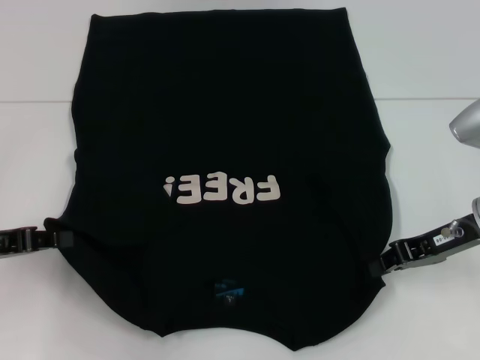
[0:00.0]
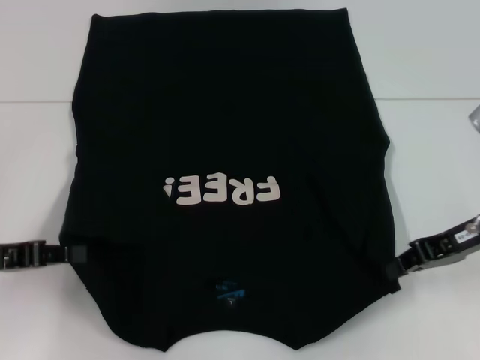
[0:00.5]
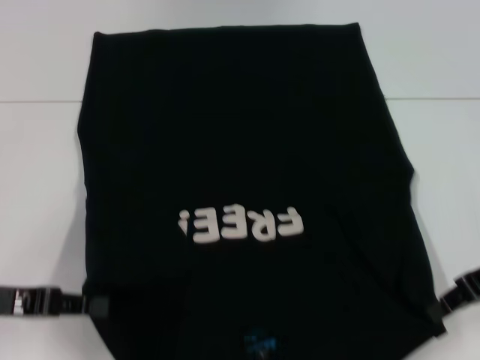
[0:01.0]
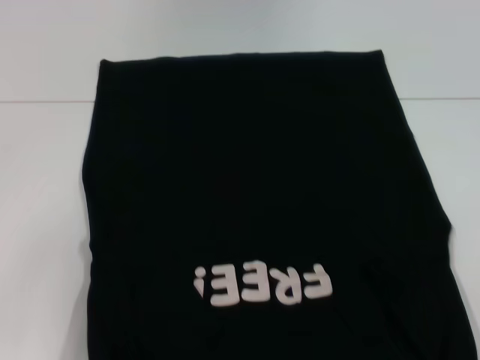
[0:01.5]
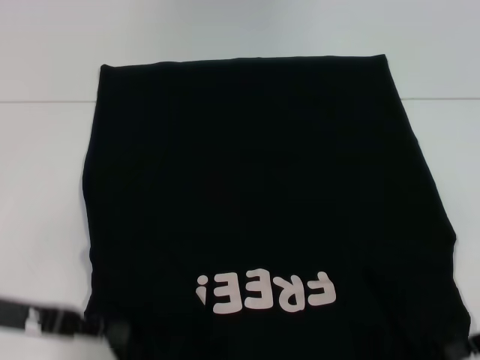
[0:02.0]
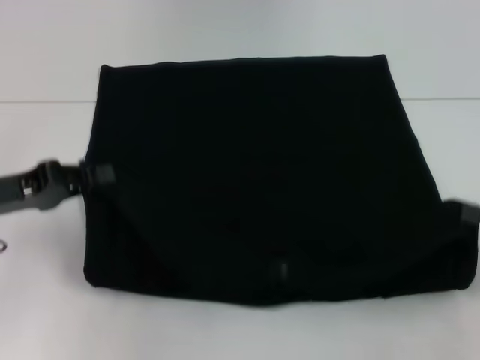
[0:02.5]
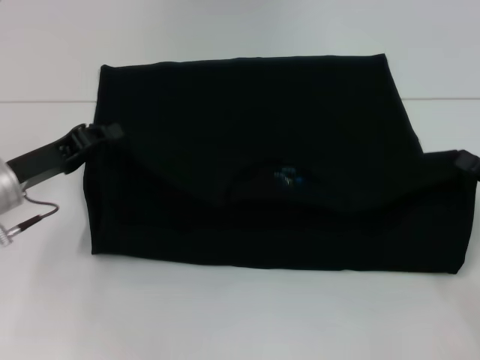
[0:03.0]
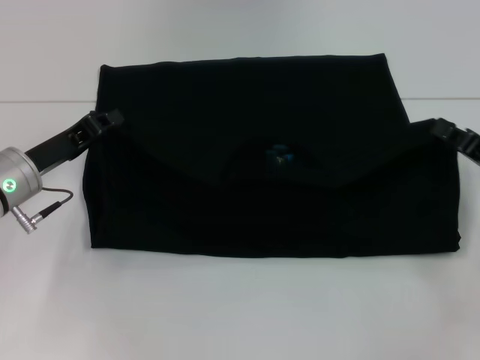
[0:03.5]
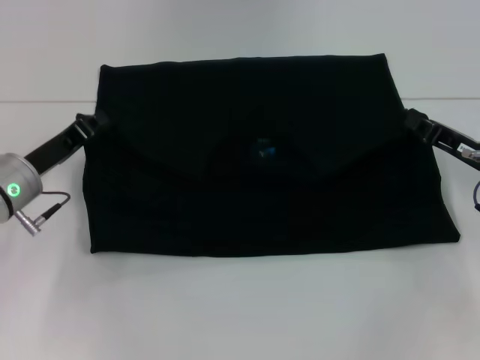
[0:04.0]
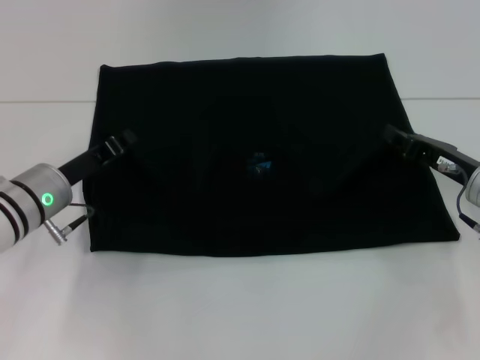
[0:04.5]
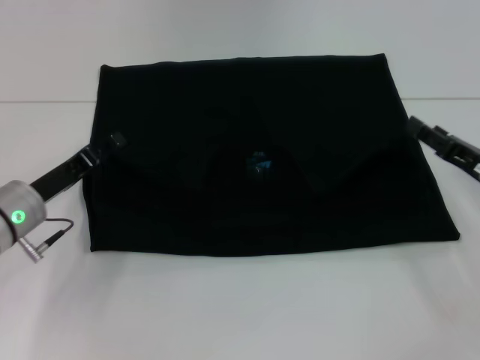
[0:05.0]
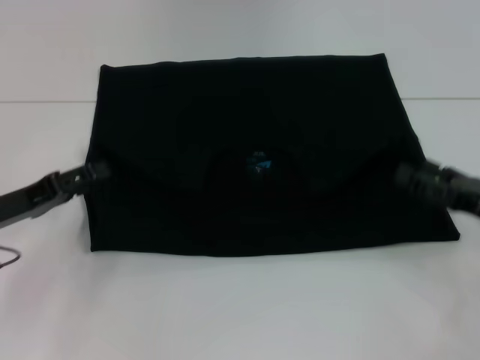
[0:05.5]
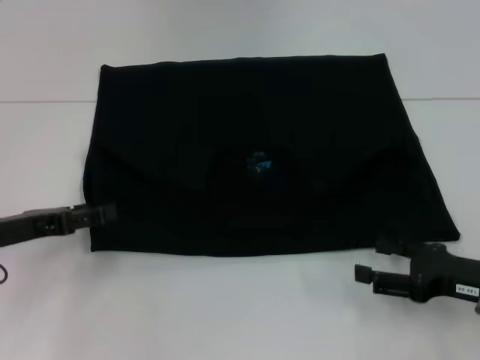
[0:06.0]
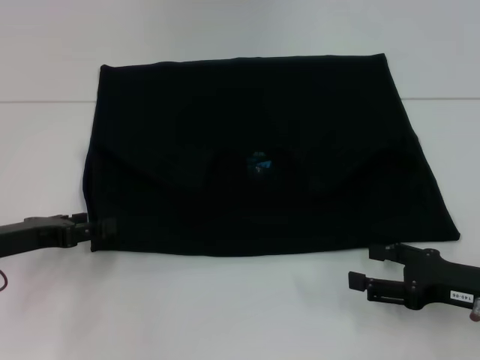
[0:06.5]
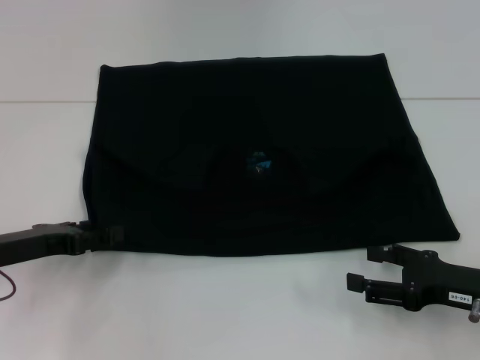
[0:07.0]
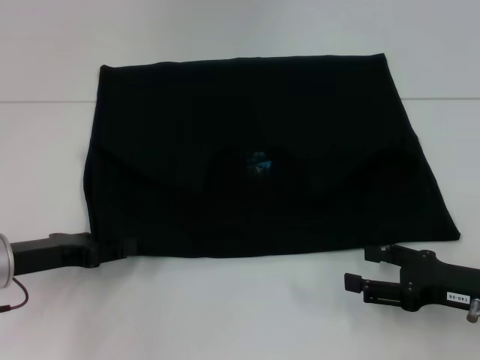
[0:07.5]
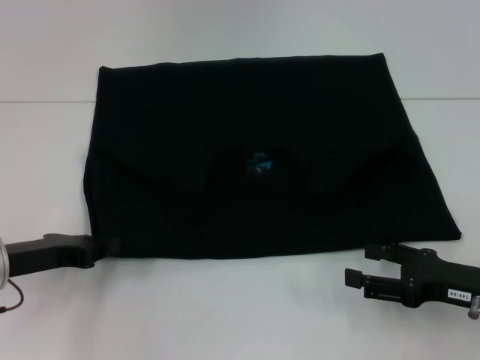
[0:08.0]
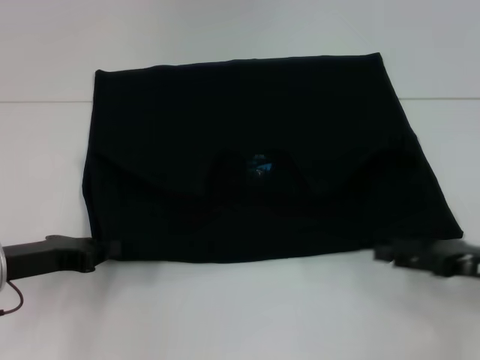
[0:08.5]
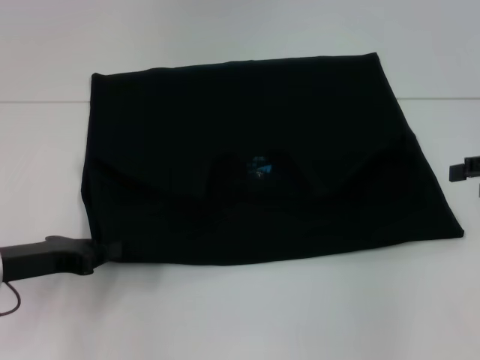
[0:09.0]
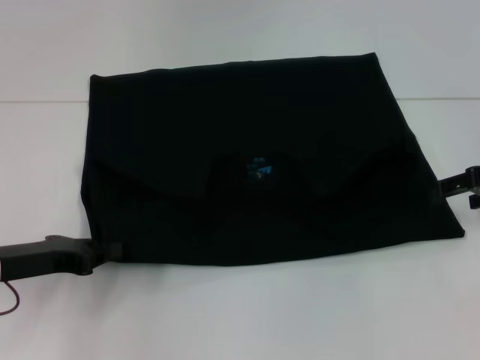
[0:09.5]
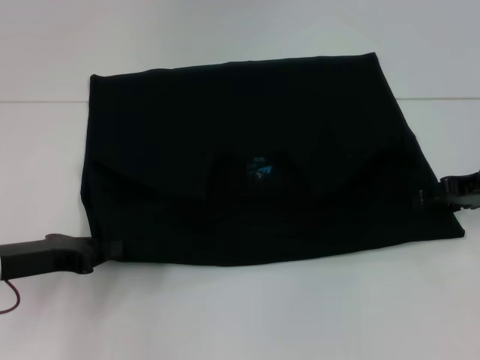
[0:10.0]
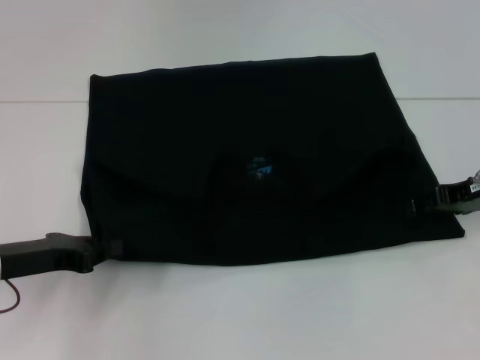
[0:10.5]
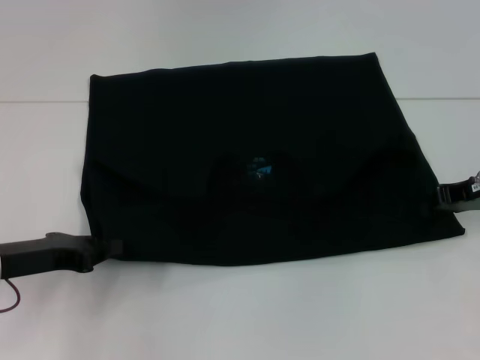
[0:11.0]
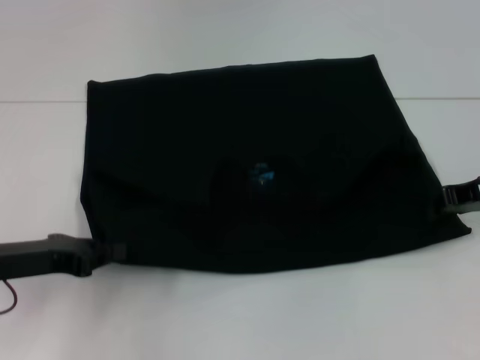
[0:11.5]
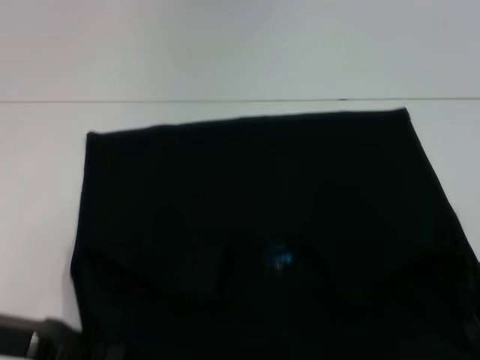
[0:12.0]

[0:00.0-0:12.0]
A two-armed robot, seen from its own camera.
Step, 0:00.0 to 0:04.5: Fold the clothes with your left hand.
Step, 0:00.0 to 0:04.5: Fold the clothes with your right hand.
0:00.0 to 0:02.0: The right gripper heads backward and to the right, covering approximately 10 cm. The left gripper moves about 5 cm.
0:02.0 to 0:04.0: Both grippers move forward, some 10 cm.
0:04.0 to 0:06.0: The left gripper goes approximately 5 cm backward, and opens its fingers. Meanwhile the right gripper goes some 10 cm backward, and opens its fingers.
0:06.0 to 0:08.0: The left gripper closes.
0:08.0 to 0:10.0: The right gripper moves forward and upward, some 15 cm.
0:10.0 to 0:12.0: The left gripper shifts by roughly 5 cm, while the right gripper heads backward, covering approximately 10 cm, and closes up.

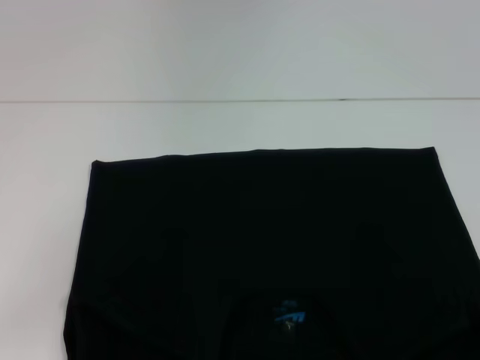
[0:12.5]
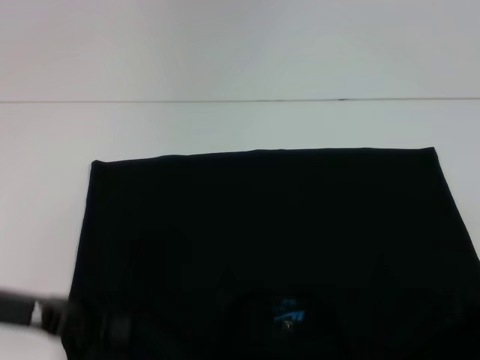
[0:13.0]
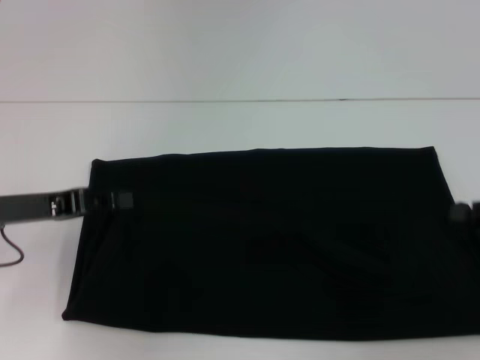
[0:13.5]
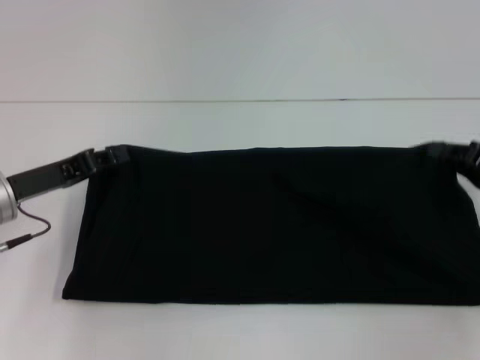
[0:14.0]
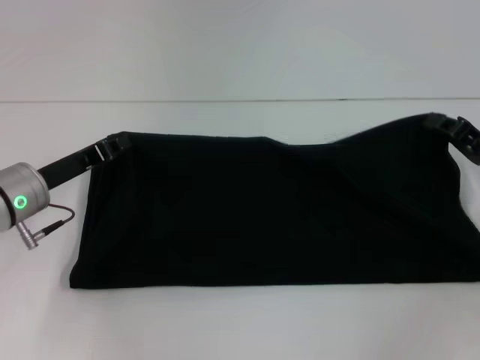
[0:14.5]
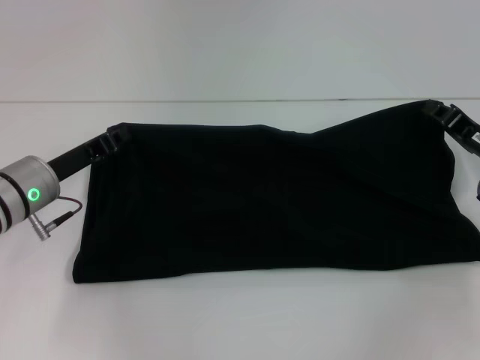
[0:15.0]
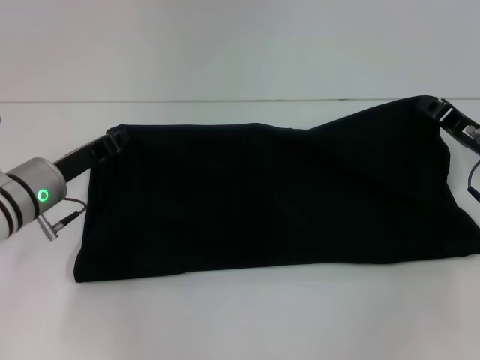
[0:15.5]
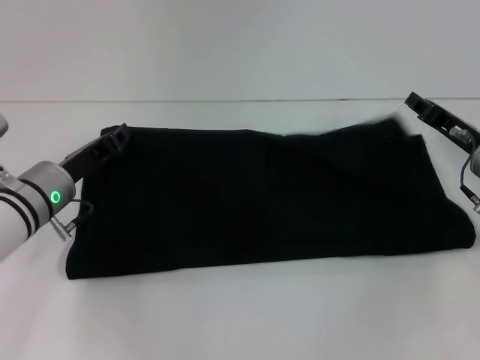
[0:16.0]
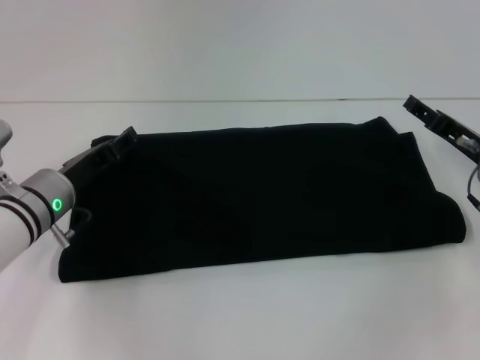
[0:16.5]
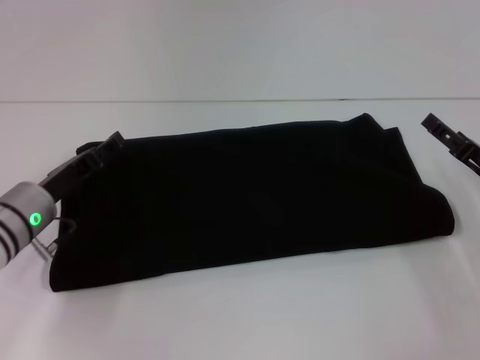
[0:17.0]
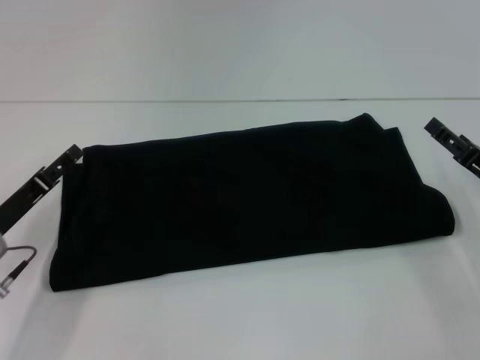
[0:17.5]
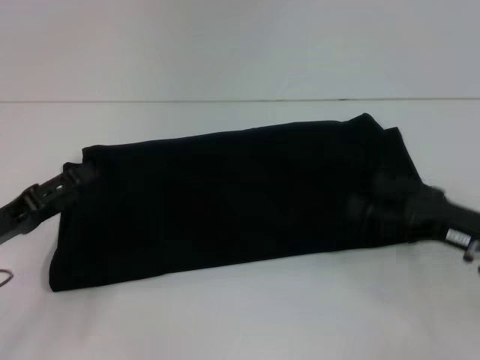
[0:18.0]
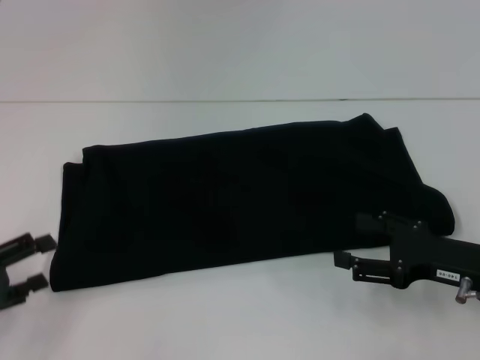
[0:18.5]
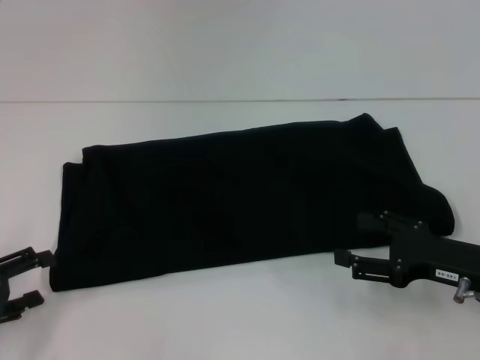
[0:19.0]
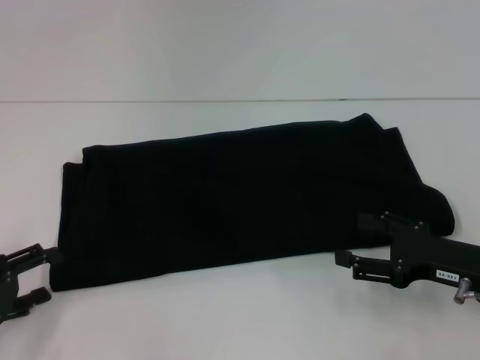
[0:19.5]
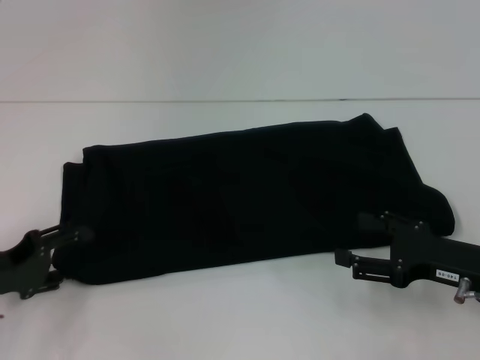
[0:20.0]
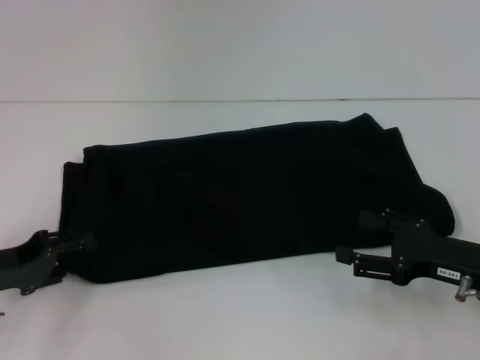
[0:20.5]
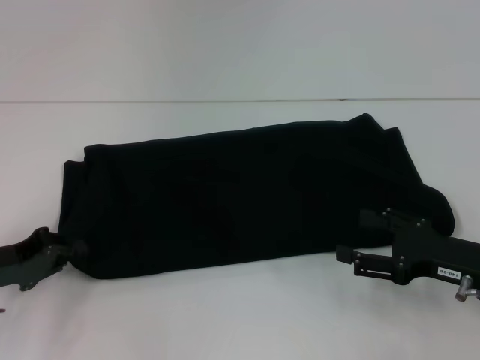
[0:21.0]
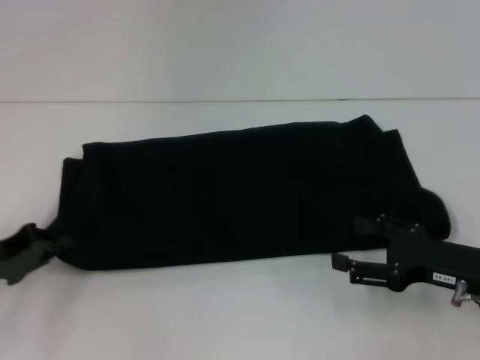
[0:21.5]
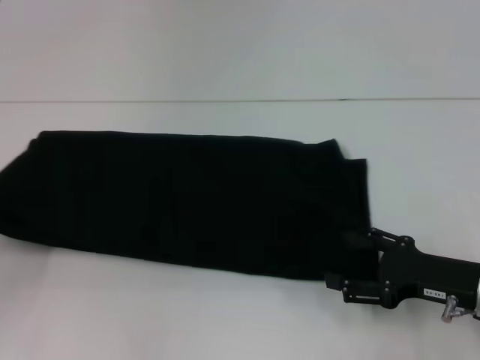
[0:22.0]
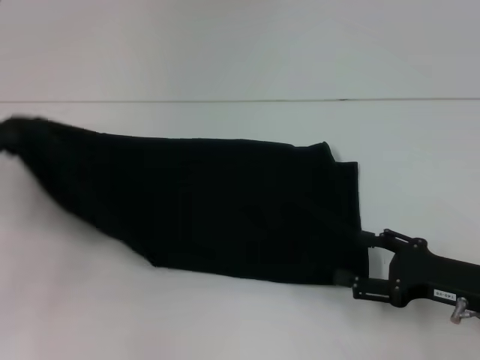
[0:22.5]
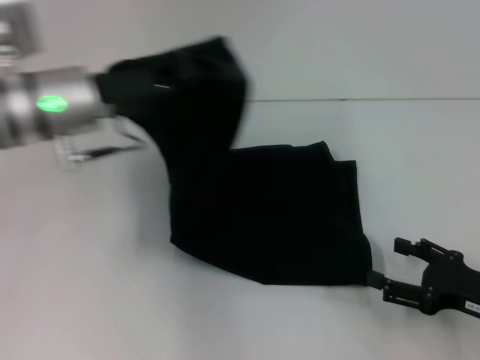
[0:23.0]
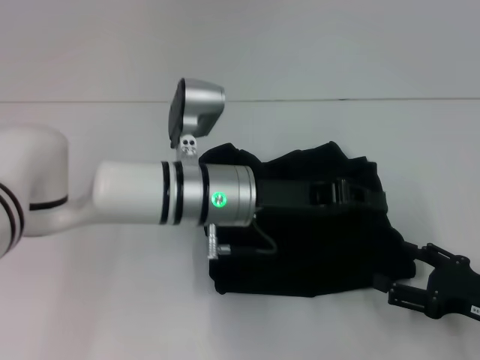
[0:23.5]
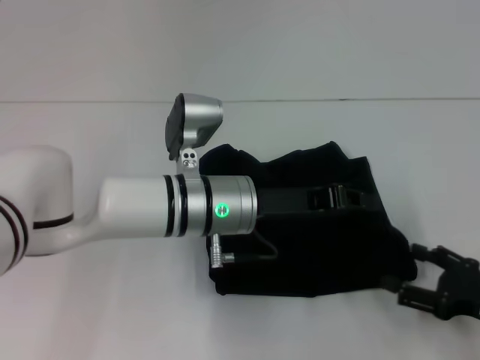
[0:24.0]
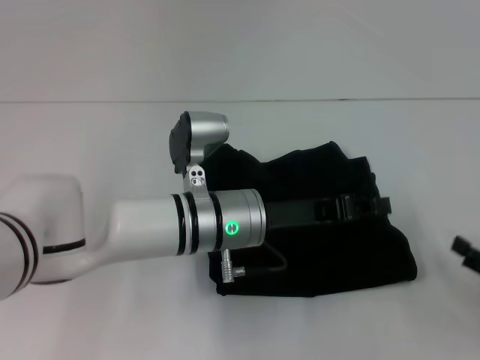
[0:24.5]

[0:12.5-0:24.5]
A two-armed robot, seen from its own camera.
Step, 0:13.0 to 0:17.0: Fold the clothes with your right hand.
0:12.5 to 0:14.5: The two grippers go roughly 10 cm forward.
0:14.5 to 0:16.5: The right gripper opens up, while the left gripper opens its fingers.
0:16.5 to 0:18.5: The left gripper moves backward and to the left, approximately 20 cm. The right gripper moves backward, about 10 cm, and opens its fingers.
0:18.5 to 0:20.5: The left gripper shifts about 5 cm forward.
0:20.5 to 0:22.5: The left gripper goes some 10 cm upward, and closes up.
0:22.5 to 0:24.5: The right gripper is displaced to the right by approximately 10 cm. The left gripper heads to the right, covering roughly 30 cm.

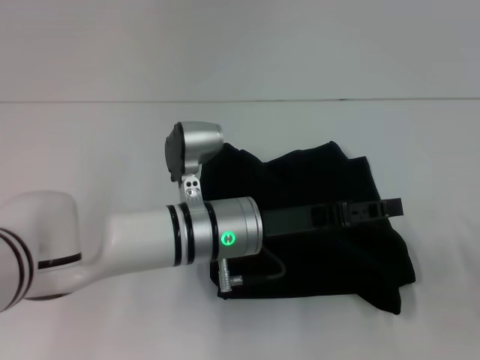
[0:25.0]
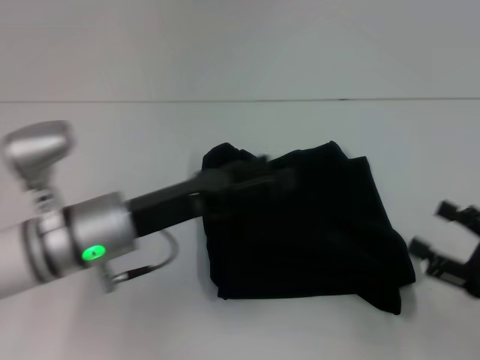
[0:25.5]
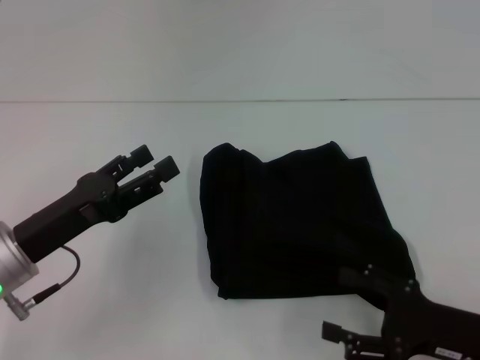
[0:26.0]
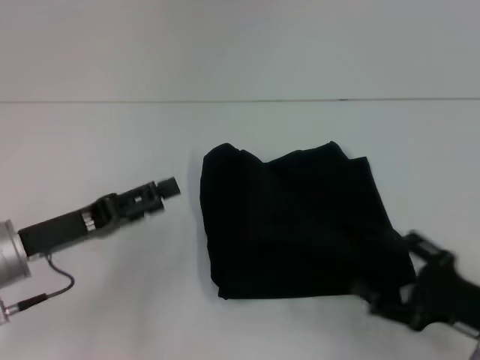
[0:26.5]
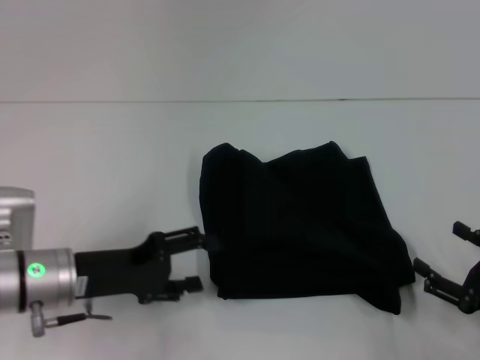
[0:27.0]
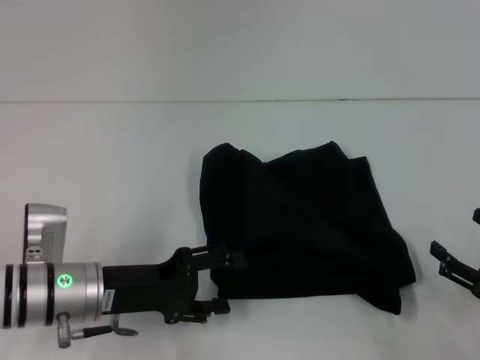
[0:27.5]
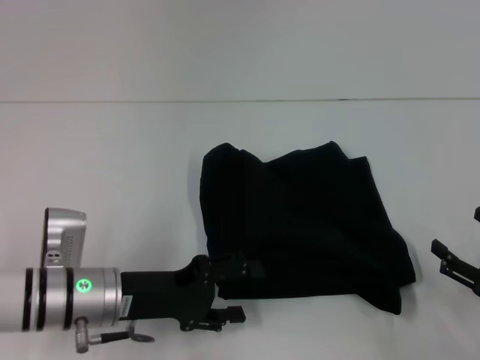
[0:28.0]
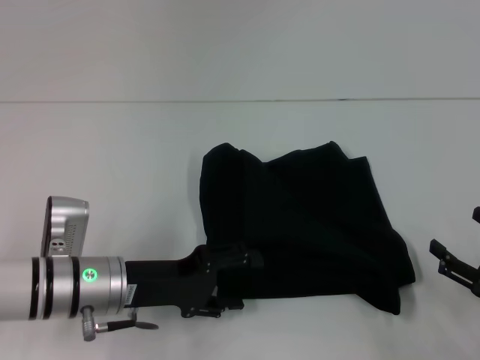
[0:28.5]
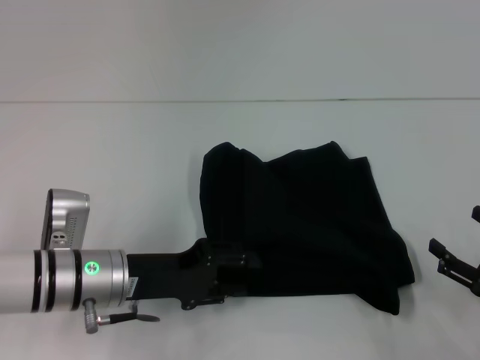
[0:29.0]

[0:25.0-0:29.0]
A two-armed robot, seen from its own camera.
0:25.0 to 0:27.0: The left gripper goes approximately 15 cm to the left.
0:27.0 to 0:29.0: The grippers make only small movements.
